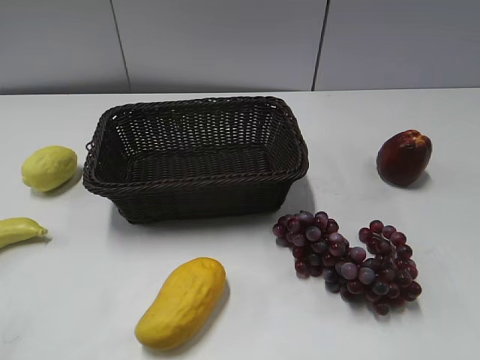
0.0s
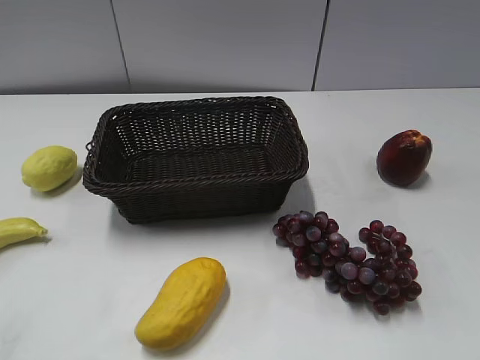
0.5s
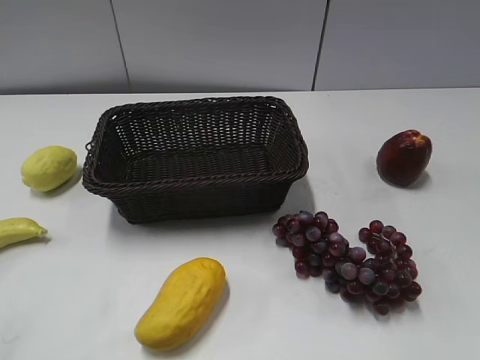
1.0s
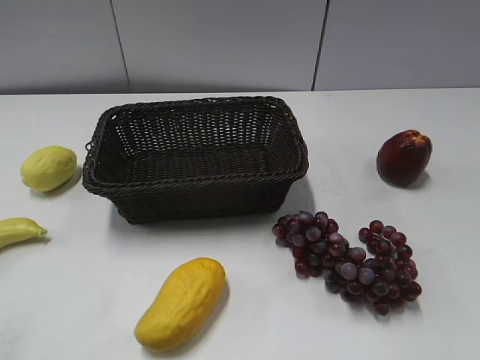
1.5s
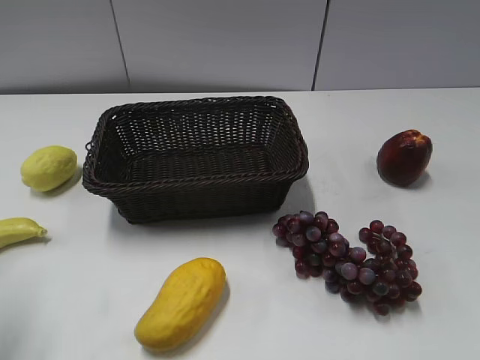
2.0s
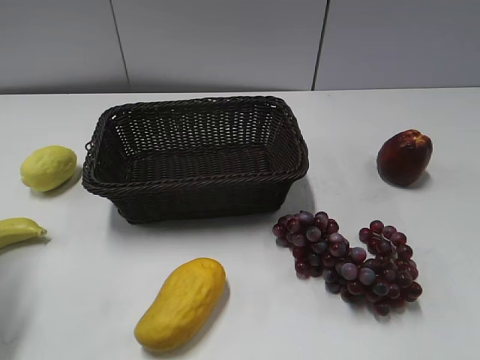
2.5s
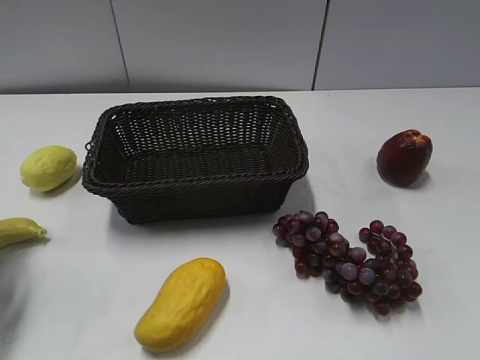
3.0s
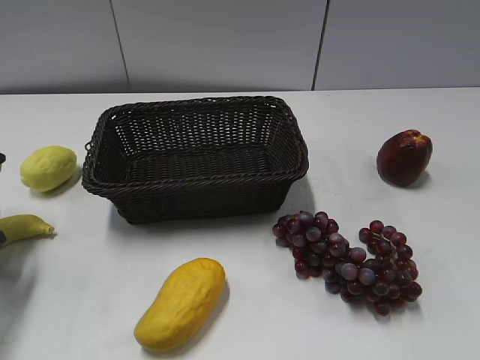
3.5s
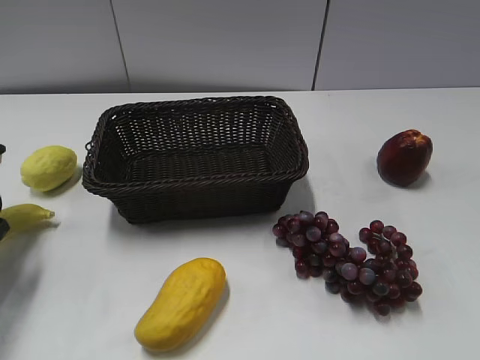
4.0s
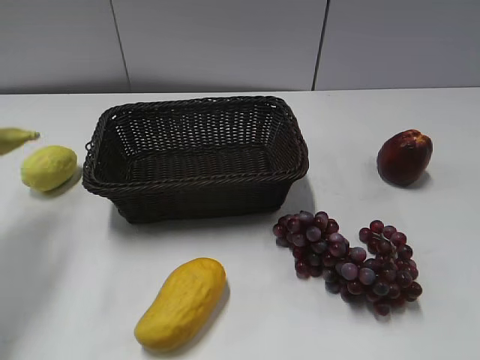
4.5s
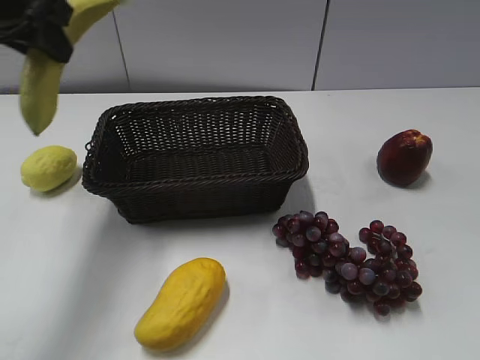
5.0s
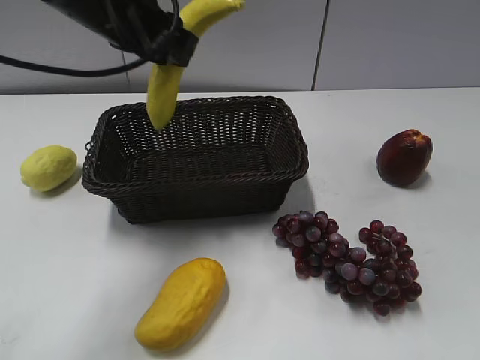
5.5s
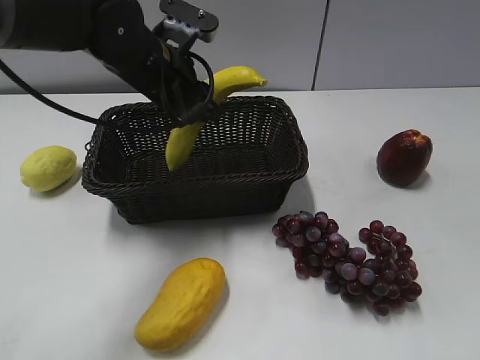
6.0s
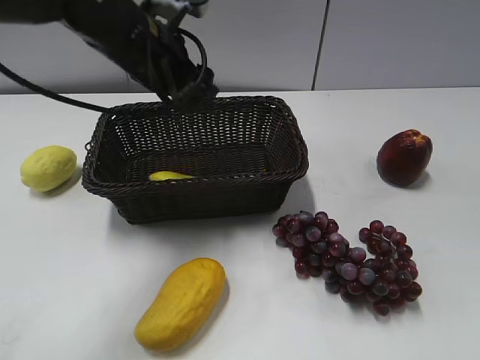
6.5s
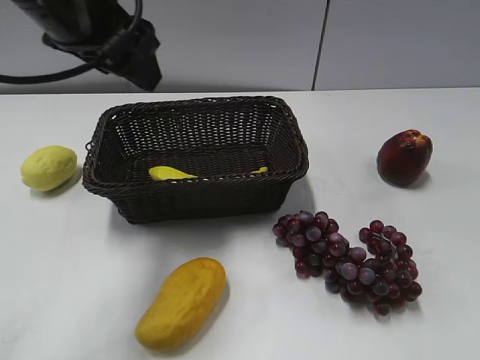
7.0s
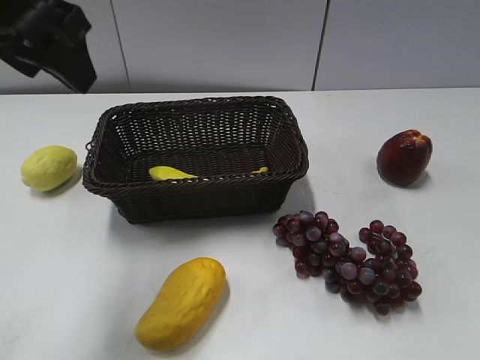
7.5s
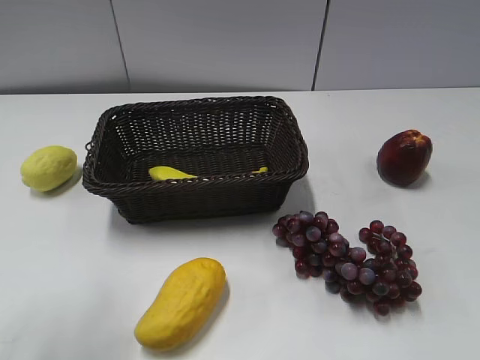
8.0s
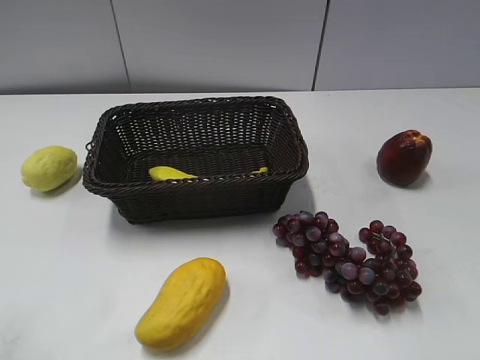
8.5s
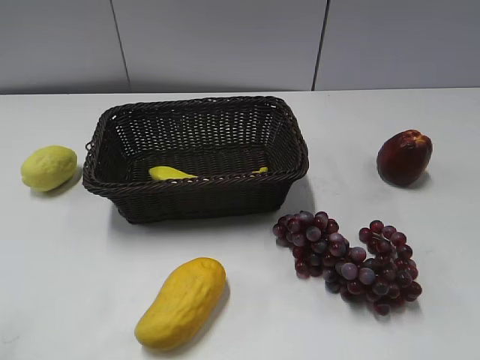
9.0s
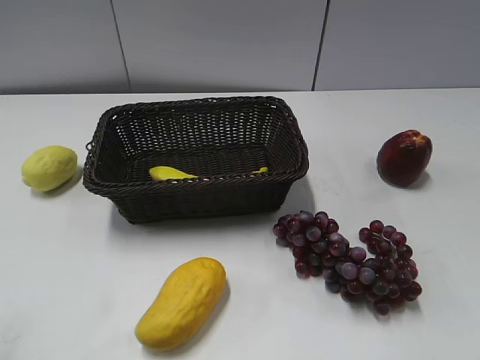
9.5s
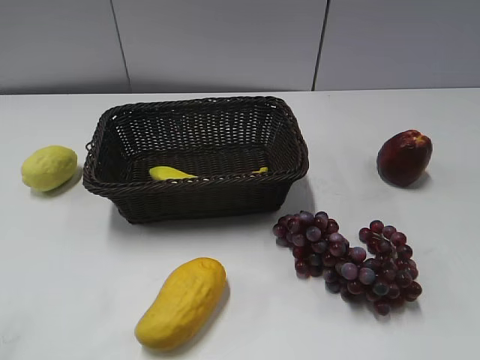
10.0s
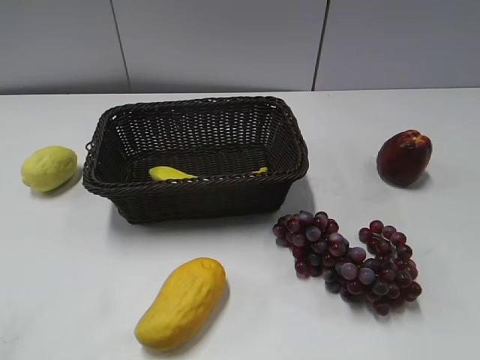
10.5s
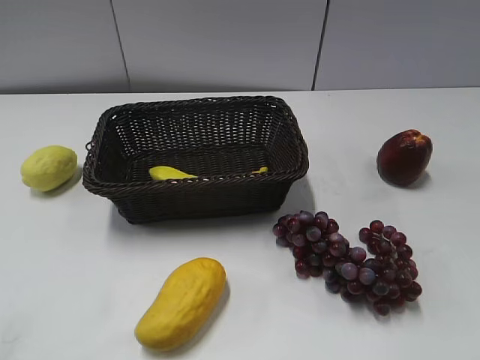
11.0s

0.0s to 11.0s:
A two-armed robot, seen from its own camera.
Step, 4.0s to 6.5s: Place the banana in the basket with left gripper.
2.0s to 3.5s: The left gripper shifts some 15 cm downward and forward.
3.5s to 5.5s: The left gripper goes roughly 25 cm to the right and upward, and closes up.
5.5s to 7.5s: The left gripper is displaced backward, upward and to the left by roughly 15 cm, and opens its fingers.
7.5s to 9.0s: The left gripper goes approximately 25 cm backward, to the left and downward.

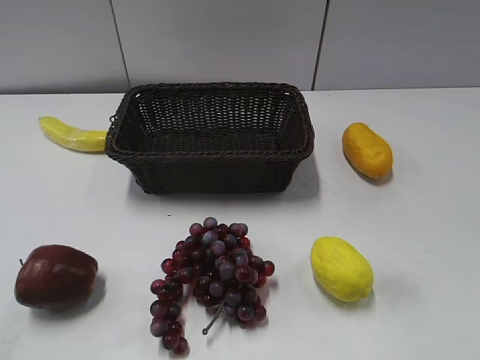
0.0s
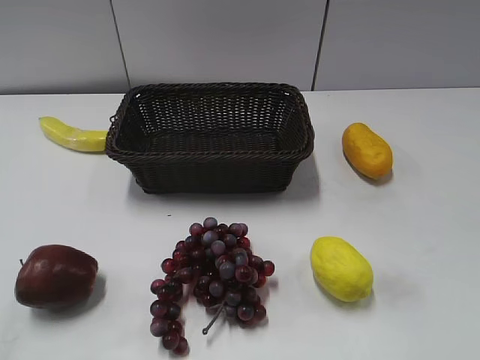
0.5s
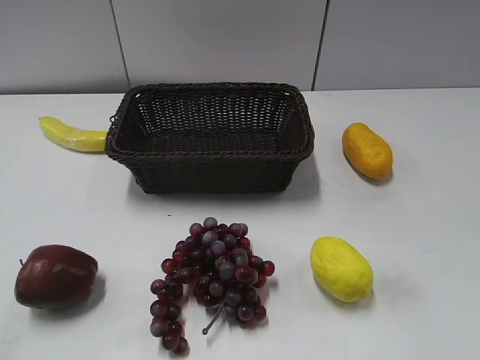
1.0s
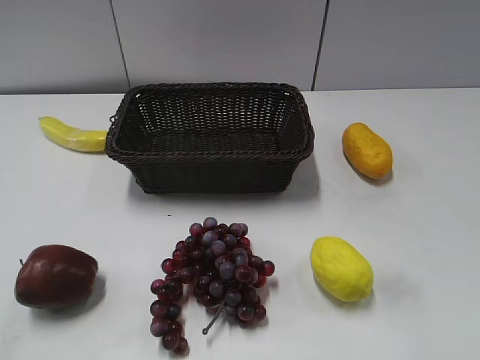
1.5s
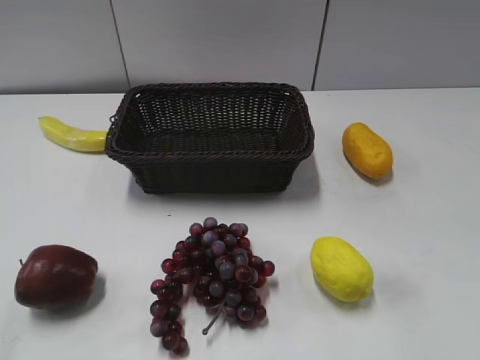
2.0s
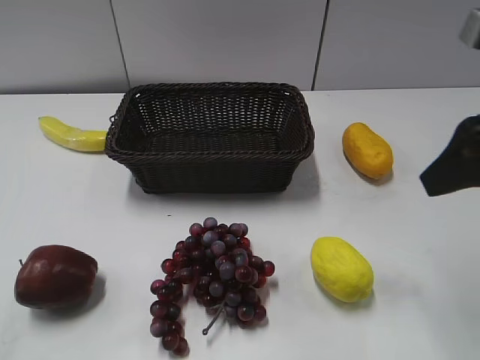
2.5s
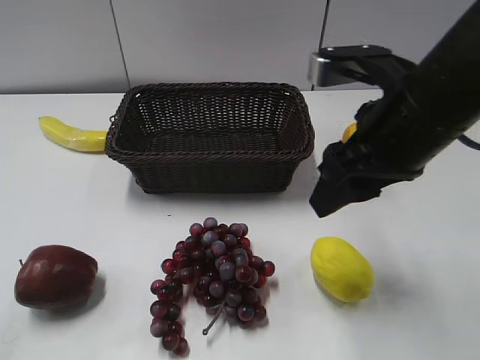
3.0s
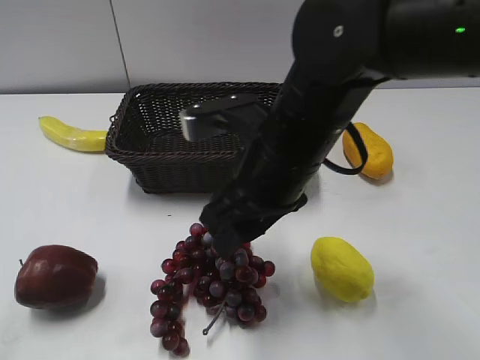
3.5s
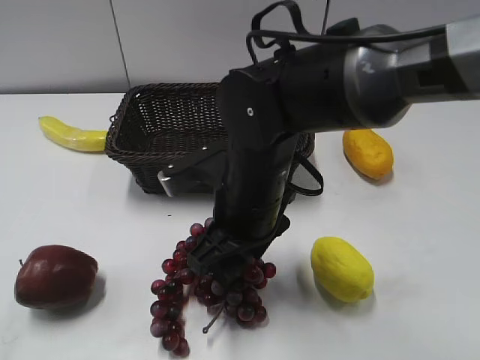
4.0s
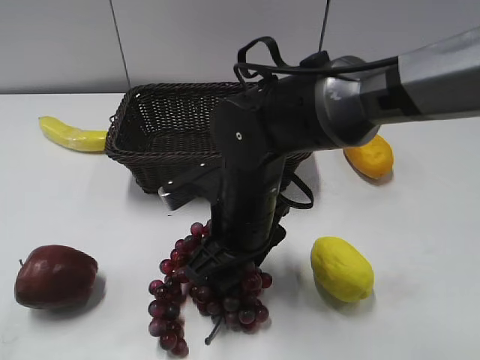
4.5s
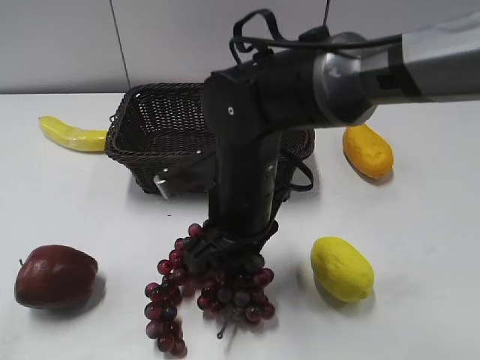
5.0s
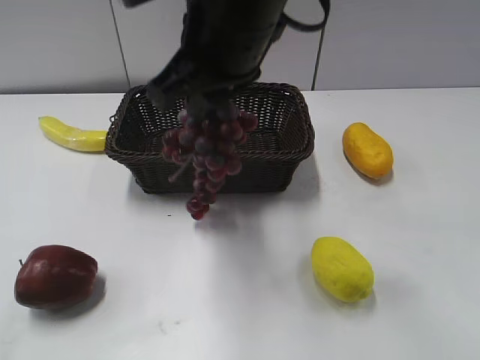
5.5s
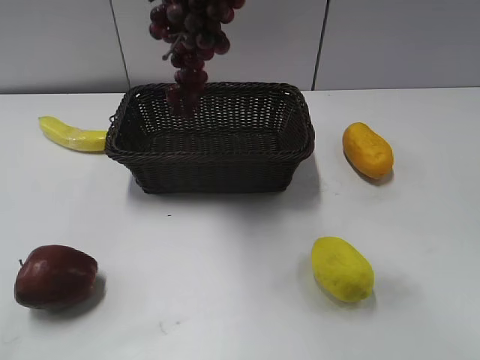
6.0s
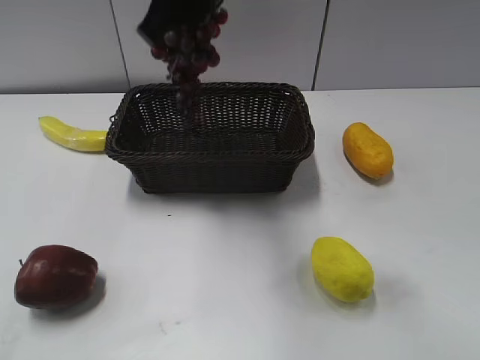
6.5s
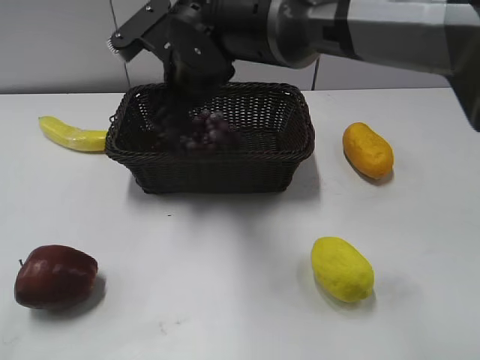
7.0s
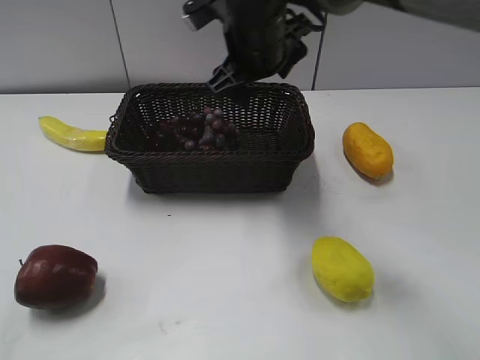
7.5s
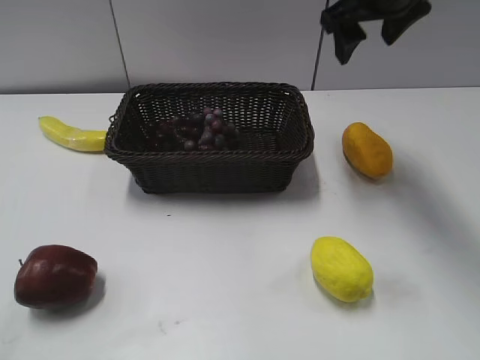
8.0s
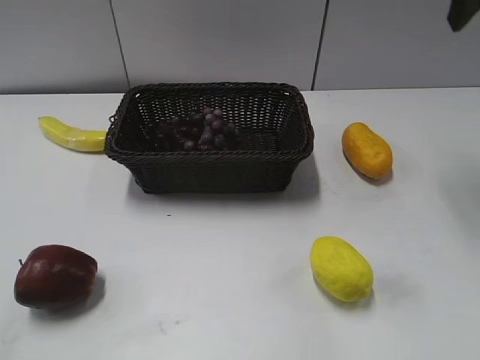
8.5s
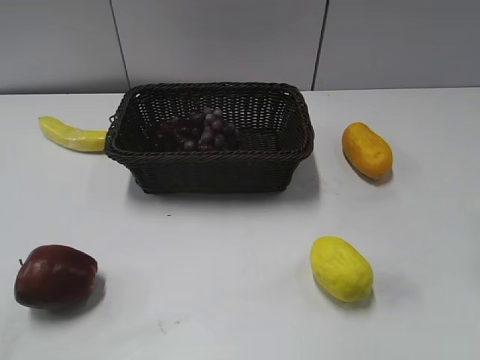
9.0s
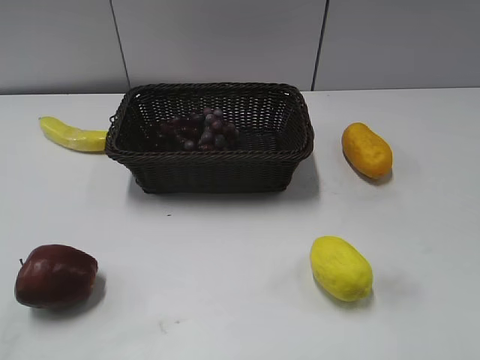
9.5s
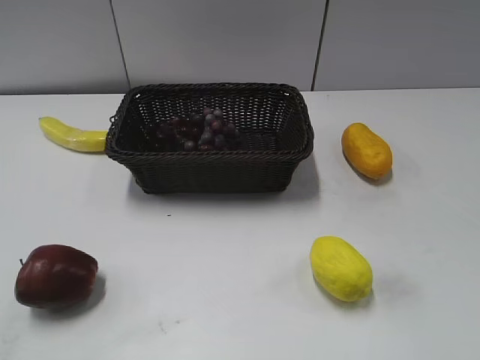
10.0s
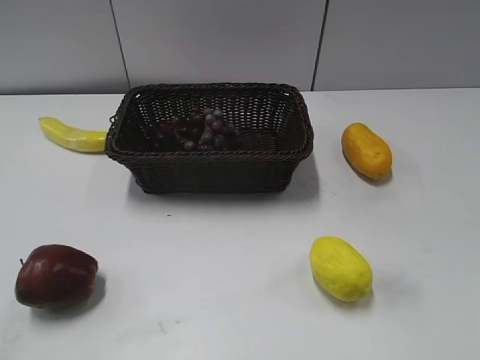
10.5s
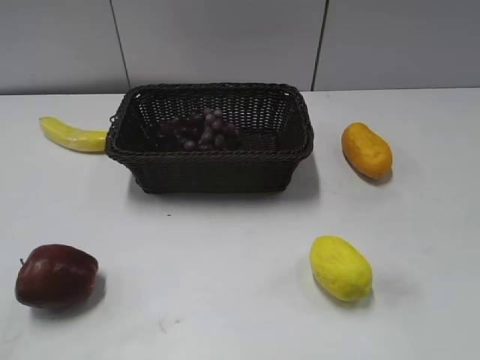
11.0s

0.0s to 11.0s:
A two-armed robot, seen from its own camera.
Step, 2.5s to 4.5s: Grasp the grape with right gripper.
Step, 5.0s to 7.0s: Place the grape in the basket with right gripper.
2.0s to 3.5s: The right gripper shifts approximately 25 cm to the left and forward.
3.5s to 5.5s: The right gripper shifts roughly 10 cm upward, and closes; the left gripper closes its fingers.
5.5s to 7.5s: The right gripper goes some 15 cm forward and downward, and opens up.
7.5s to 9.0s: The right gripper goes approximately 30 cm to the right and backward.
